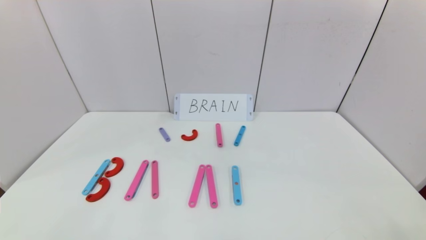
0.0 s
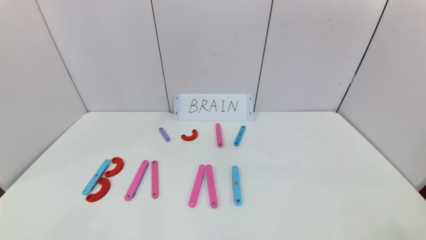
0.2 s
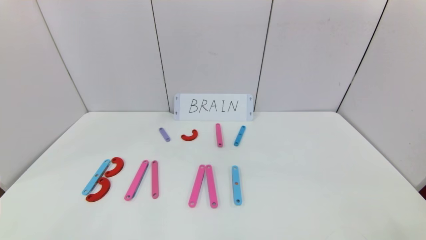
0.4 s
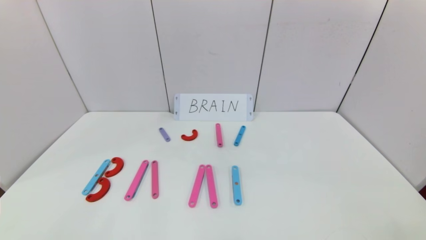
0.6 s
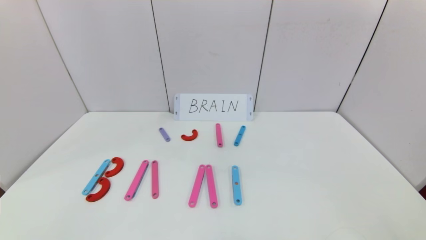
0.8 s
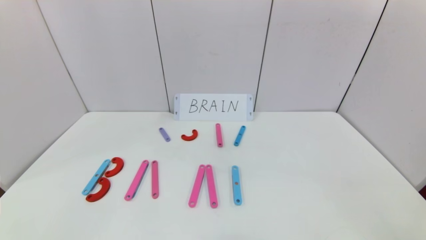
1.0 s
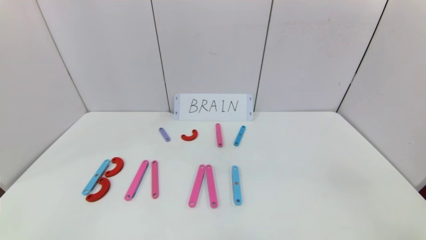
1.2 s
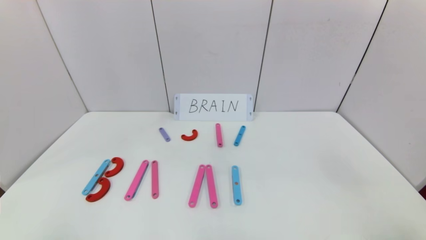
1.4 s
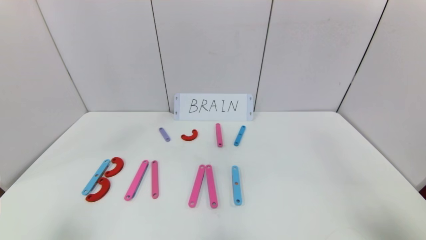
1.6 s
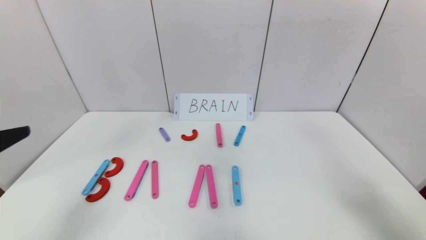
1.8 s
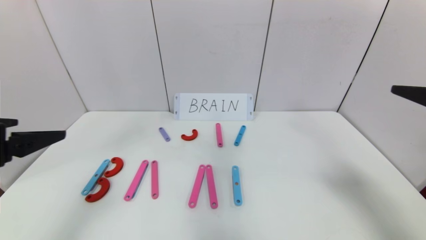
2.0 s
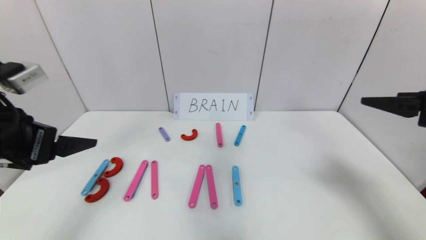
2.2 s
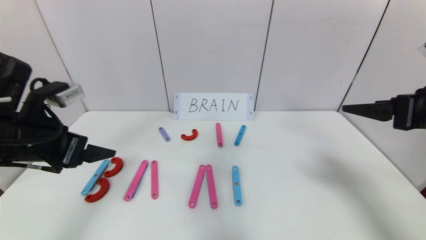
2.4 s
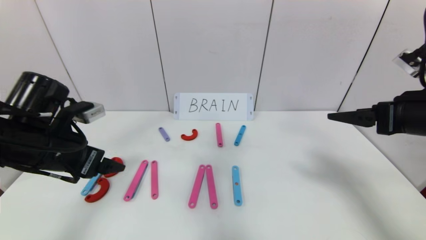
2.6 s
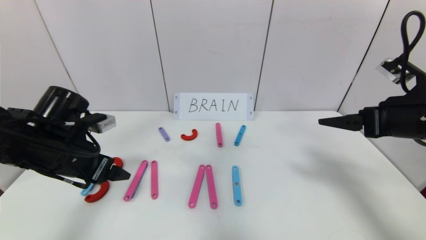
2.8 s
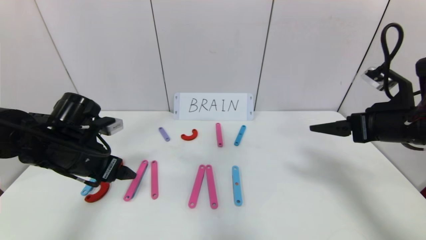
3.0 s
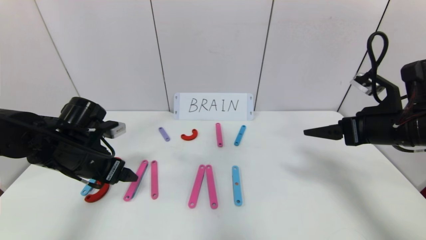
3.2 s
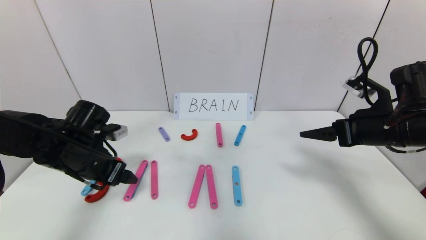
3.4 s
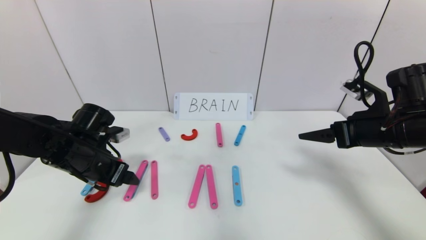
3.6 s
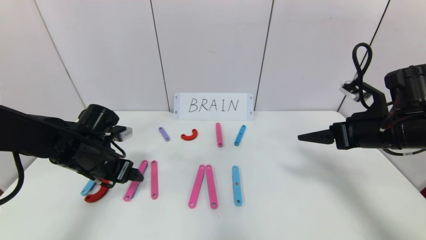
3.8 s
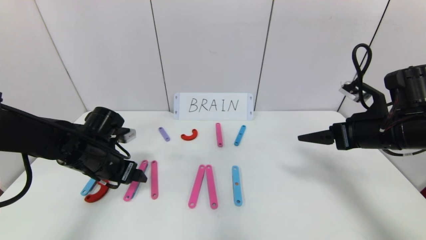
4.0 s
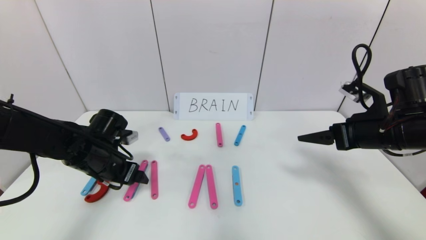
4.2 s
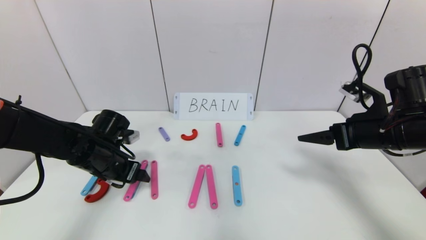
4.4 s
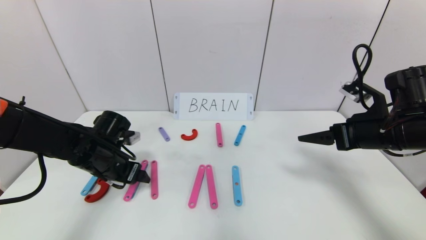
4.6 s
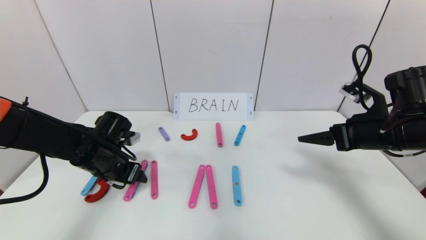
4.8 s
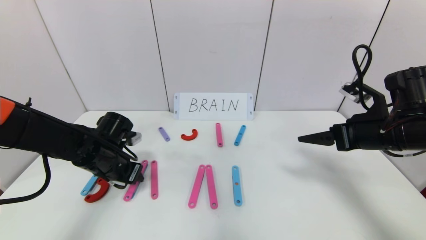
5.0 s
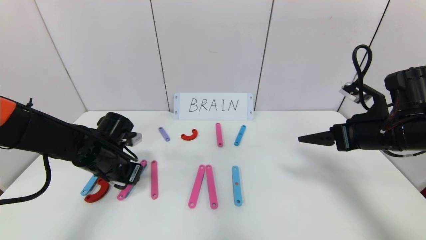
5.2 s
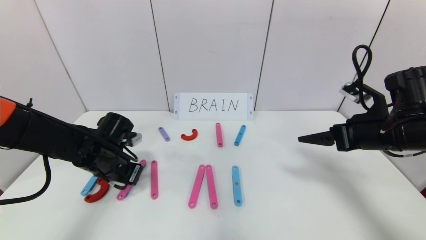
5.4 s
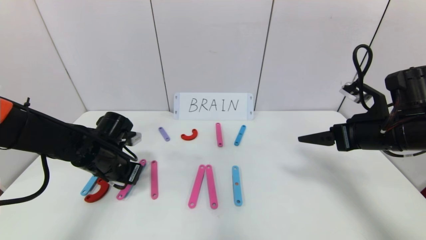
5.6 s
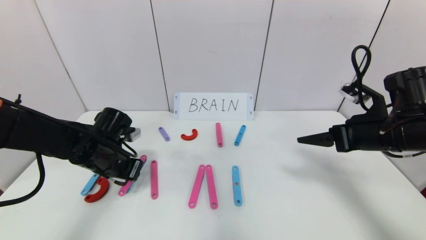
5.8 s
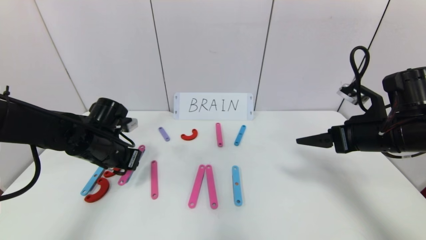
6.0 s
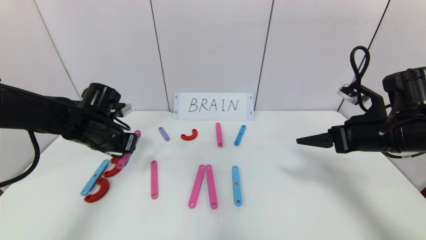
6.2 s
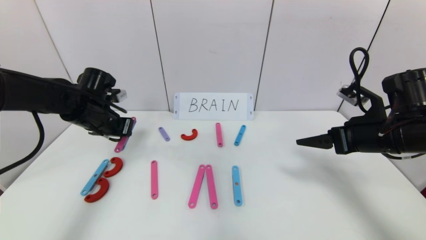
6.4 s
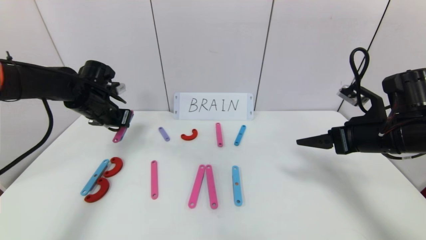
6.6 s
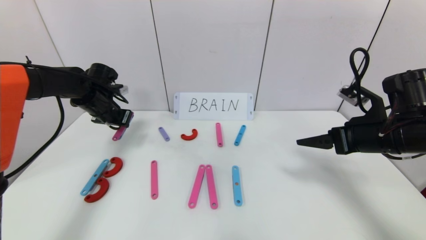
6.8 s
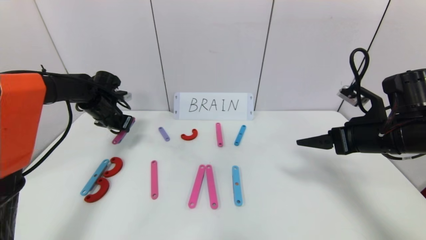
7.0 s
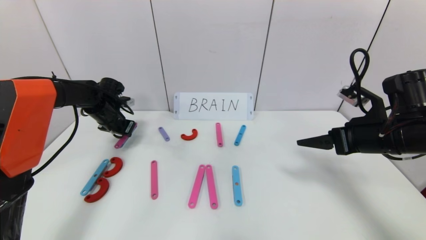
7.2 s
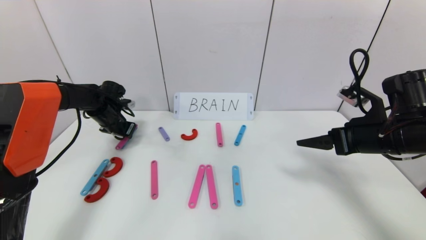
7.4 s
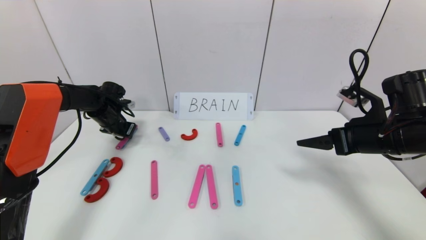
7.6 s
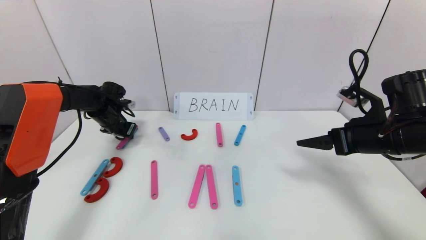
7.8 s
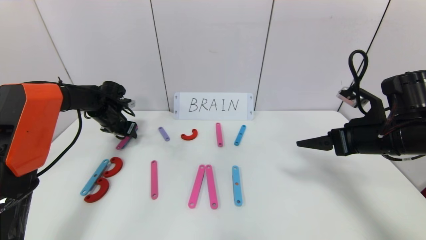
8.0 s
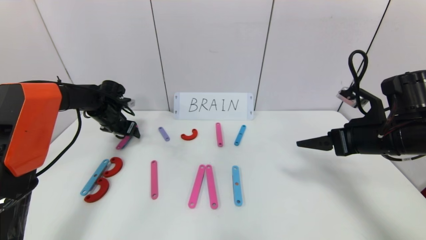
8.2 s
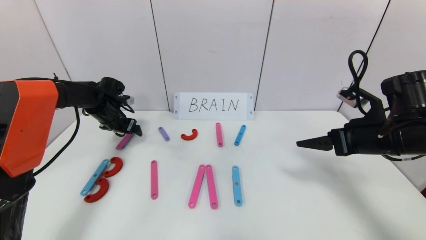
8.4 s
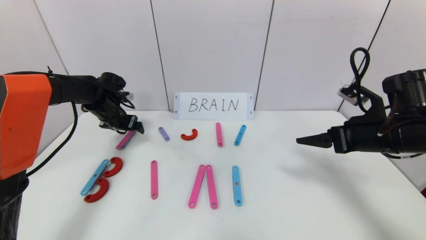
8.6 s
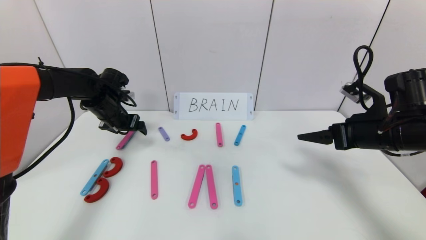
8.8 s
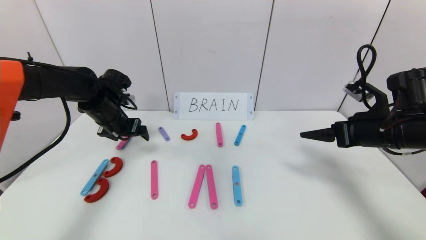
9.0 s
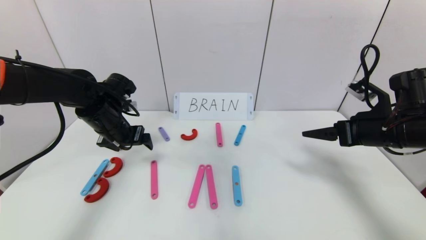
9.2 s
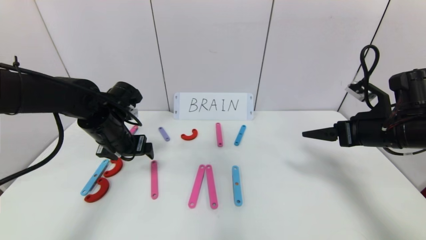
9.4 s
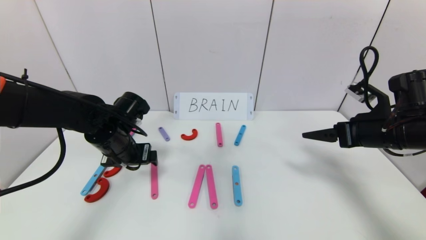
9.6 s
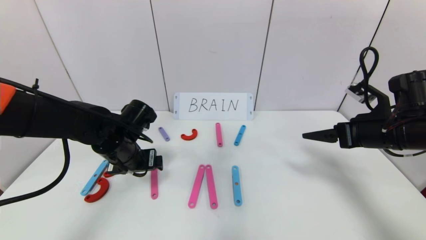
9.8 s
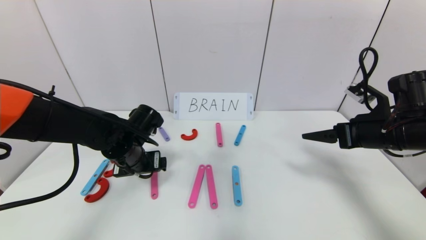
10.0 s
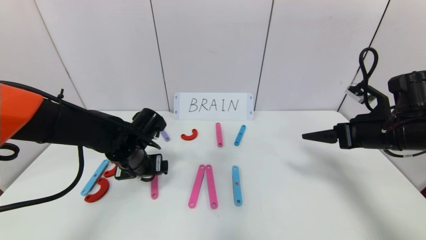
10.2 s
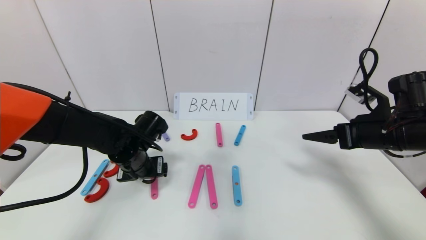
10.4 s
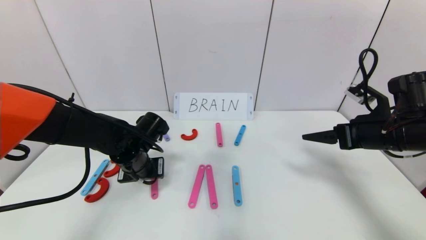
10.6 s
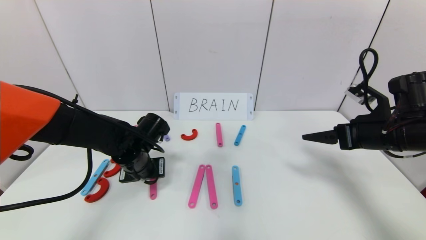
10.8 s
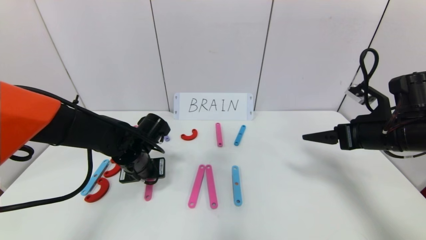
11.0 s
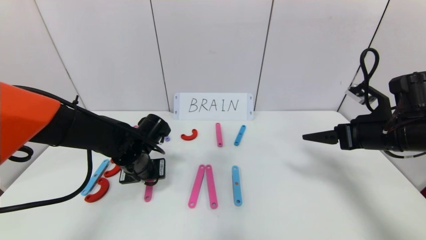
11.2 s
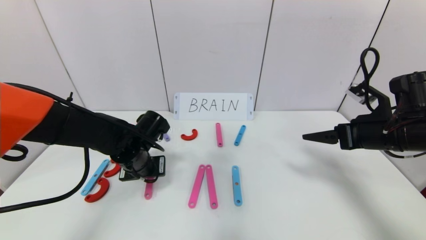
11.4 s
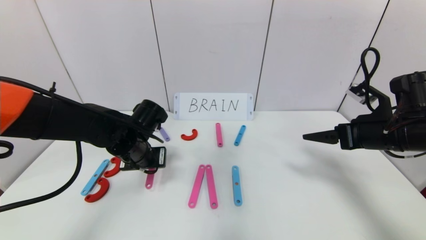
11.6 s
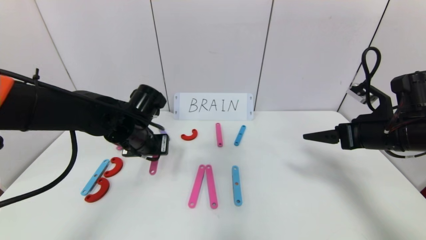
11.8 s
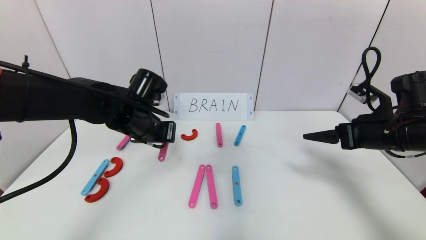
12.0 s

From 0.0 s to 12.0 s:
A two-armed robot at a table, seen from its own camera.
Task of the whole recording: rearrange the word baai as brain.
From 0.0 s to 1.6 s: The right gripper travels upward and forward by about 20 cm.
From 1.6 s to 3.0 s: The right gripper shifts approximately 20 cm forward. The left gripper travels forward and downward by about 25 cm.
From 3.0 s to 4.4 s: The left gripper heads downward, covering some 5 cm.
From 4.4 s to 6.0 s: The left gripper closes.
From 6.0 s to 7.6 s: The left gripper heads forward and to the left, covering some 15 cm.
From 7.6 s to 9.0 s: The left gripper goes some 10 cm backward, to the right and upward, and opens up.
From 9.0 s to 10.4 s: The left gripper travels to the right, backward and downward by approximately 15 cm.
From 10.4 s to 12.0 s: The left gripper heads upward, covering approximately 10 cm, and closes up.

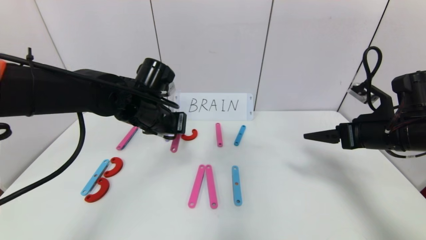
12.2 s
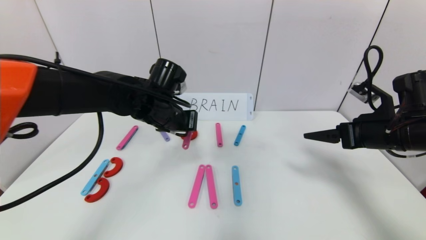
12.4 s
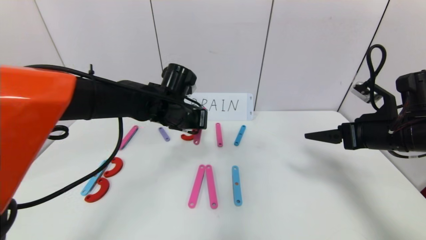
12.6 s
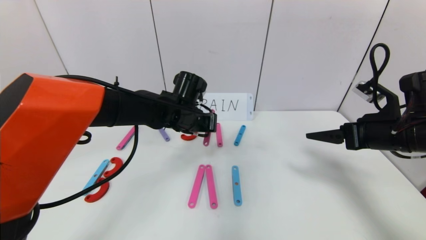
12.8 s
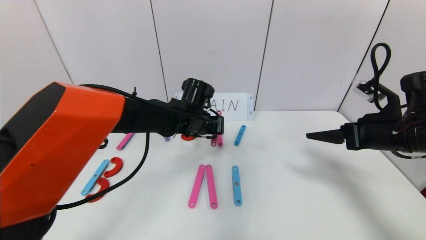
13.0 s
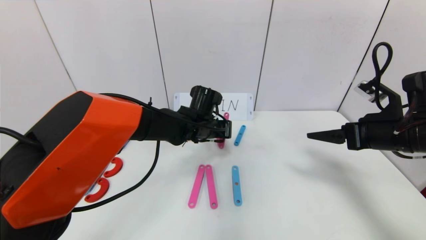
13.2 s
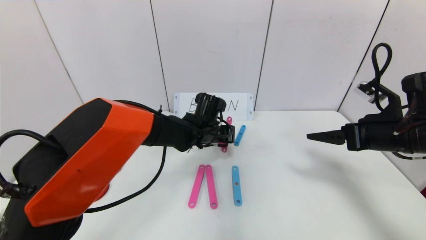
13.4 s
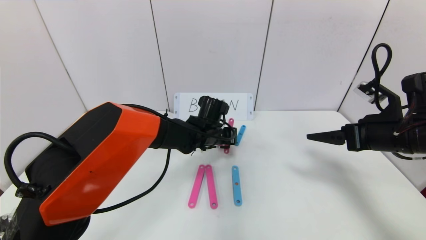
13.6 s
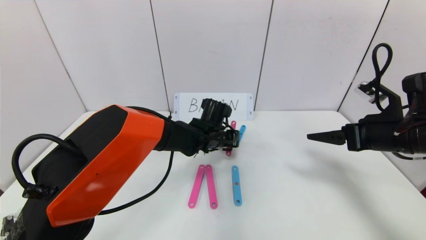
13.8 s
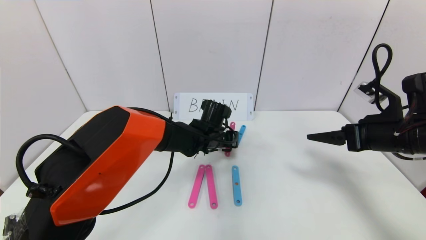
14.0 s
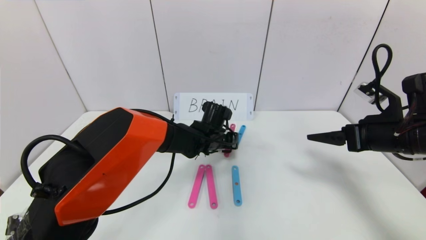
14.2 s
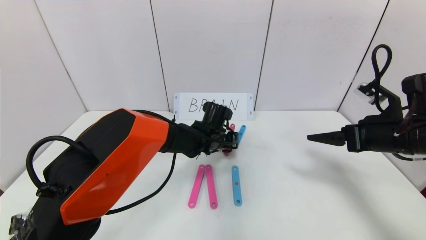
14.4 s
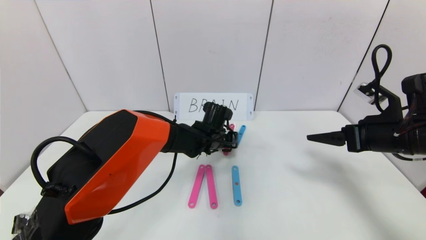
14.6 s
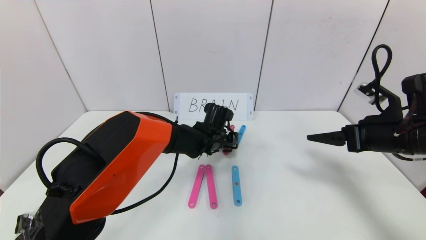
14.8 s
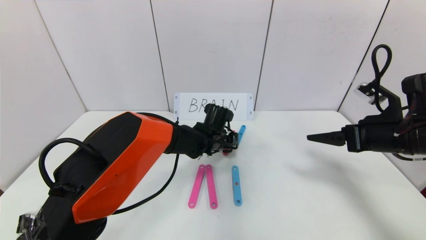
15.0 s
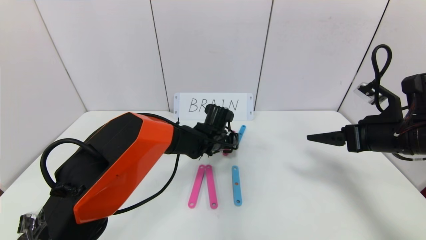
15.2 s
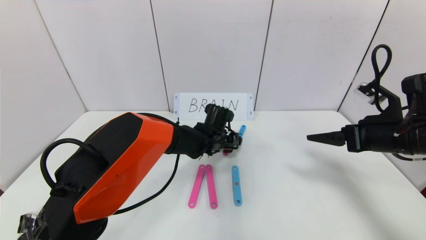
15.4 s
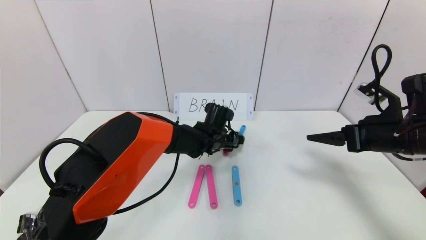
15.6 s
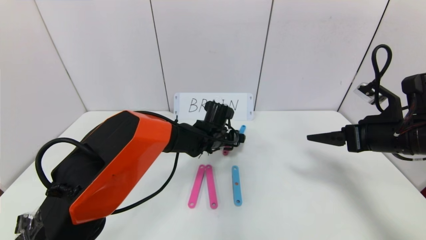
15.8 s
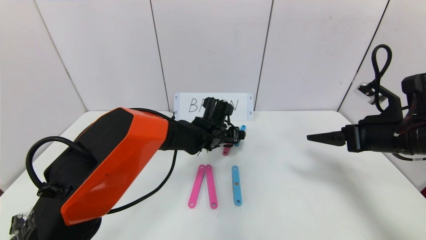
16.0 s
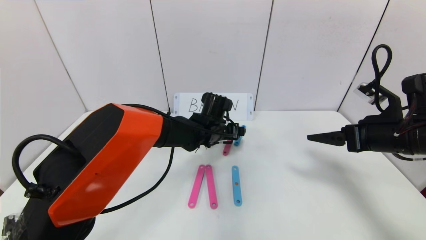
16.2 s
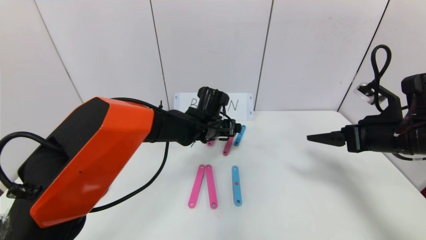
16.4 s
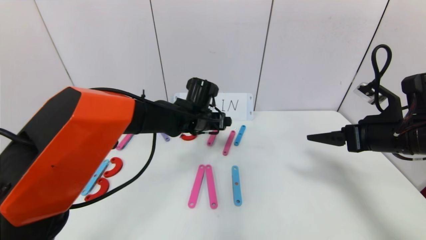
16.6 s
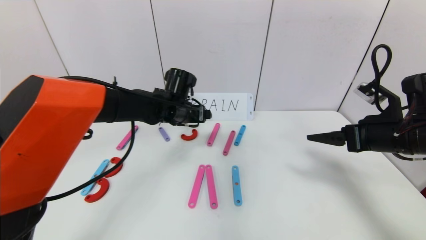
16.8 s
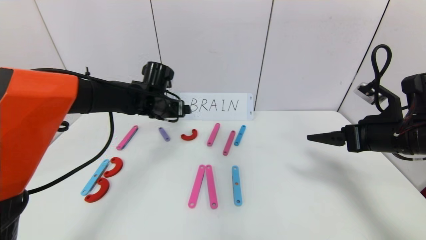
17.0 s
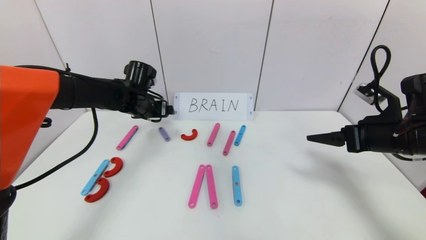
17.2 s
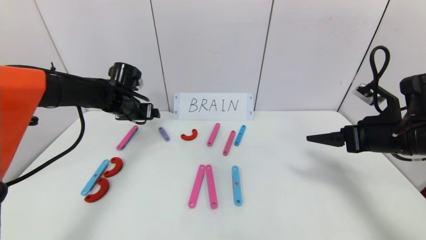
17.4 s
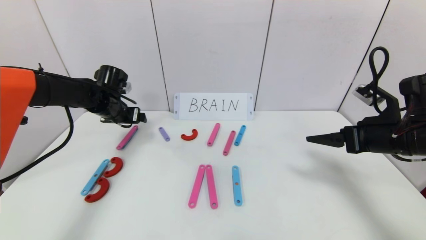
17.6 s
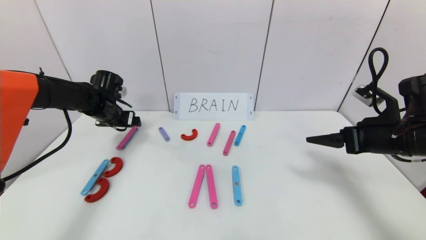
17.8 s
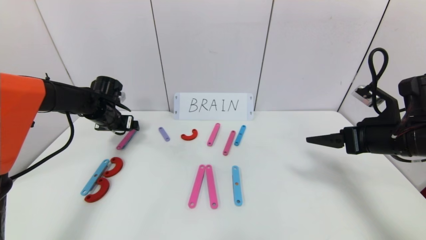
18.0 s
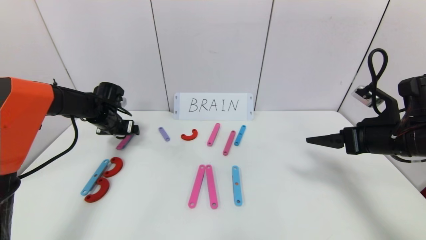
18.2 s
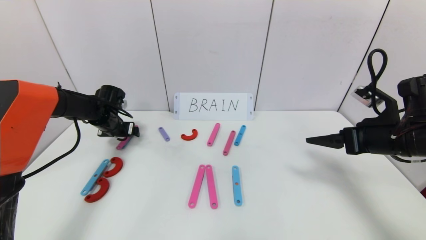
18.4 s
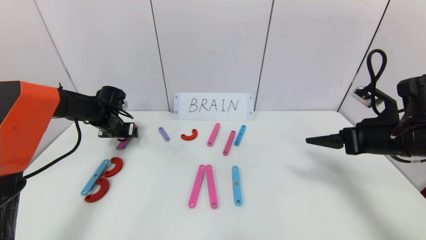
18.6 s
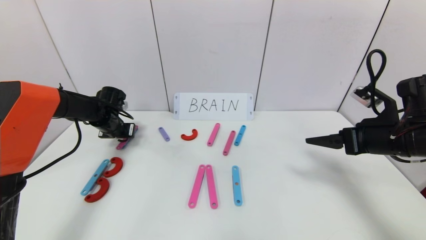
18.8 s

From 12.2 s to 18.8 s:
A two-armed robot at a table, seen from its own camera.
Task of the whole recording: rearrange the word baai as brain.
Step, from 12.2 s to 15.2 s: Disassemble the second character A.
From 12.2 s to 13.8 s: The left gripper is displaced to the right, downward and forward by about 20 cm.
From 13.8 s to 15.4 s: The left gripper opens up.
From 15.4 s to 17.2 s: The left gripper moves to the left and upward, some 20 cm.
From 17.2 s to 18.8 s: The left gripper heads to the left and downward, covering about 15 cm, and closes up.
